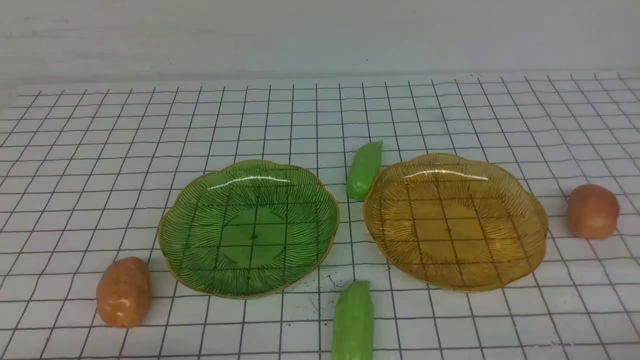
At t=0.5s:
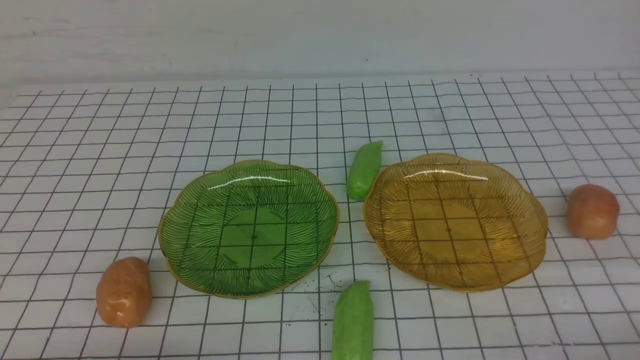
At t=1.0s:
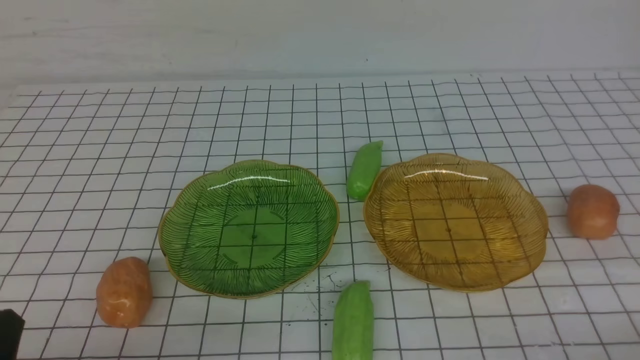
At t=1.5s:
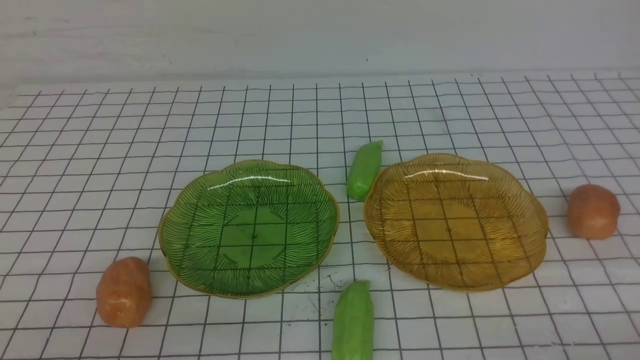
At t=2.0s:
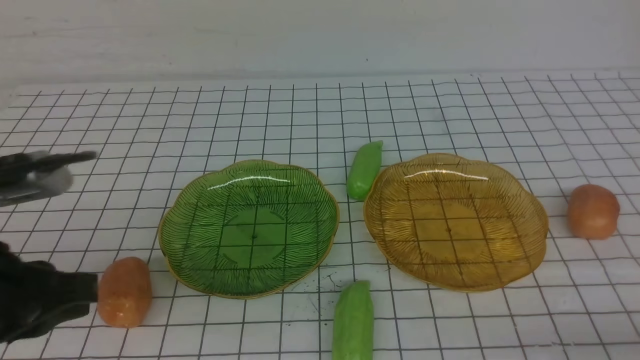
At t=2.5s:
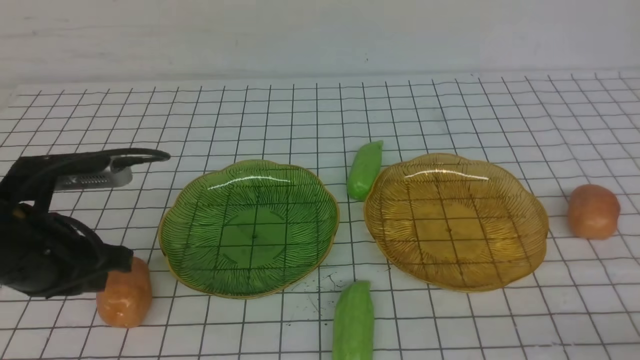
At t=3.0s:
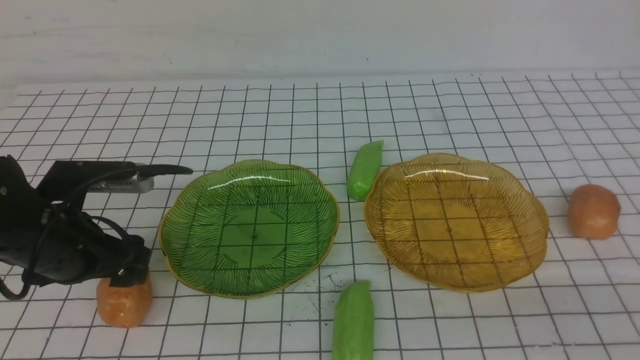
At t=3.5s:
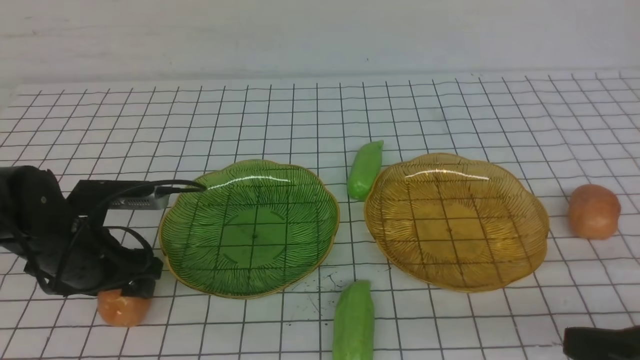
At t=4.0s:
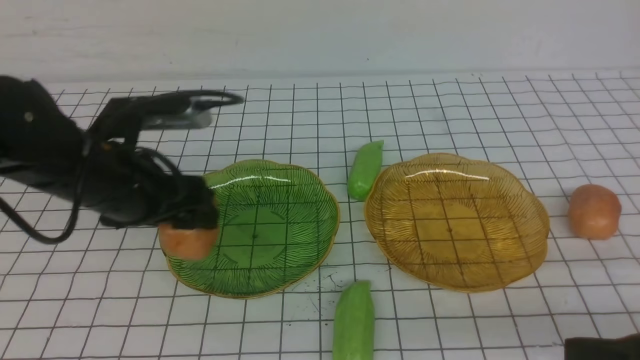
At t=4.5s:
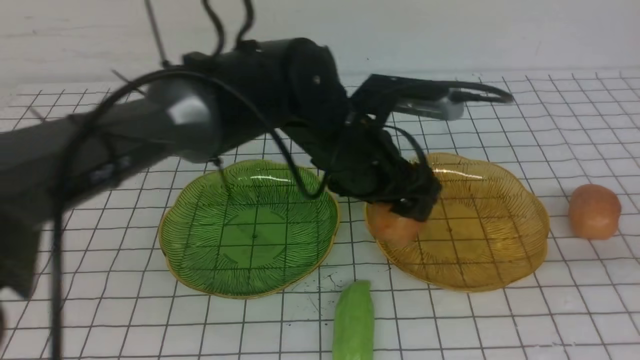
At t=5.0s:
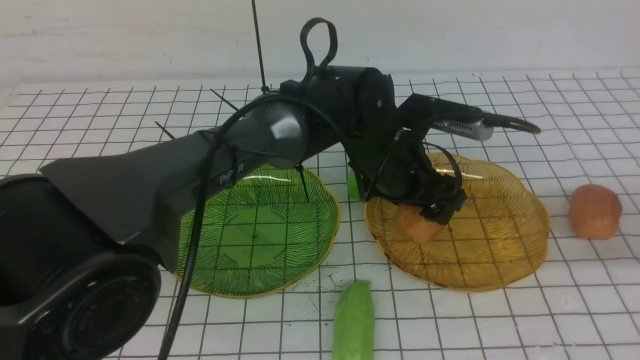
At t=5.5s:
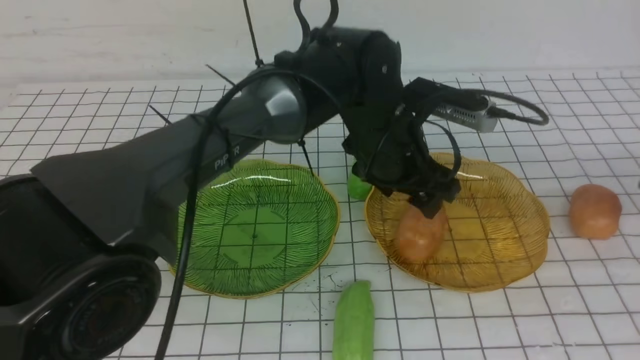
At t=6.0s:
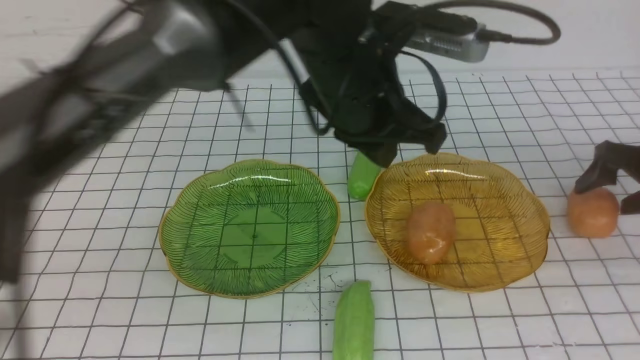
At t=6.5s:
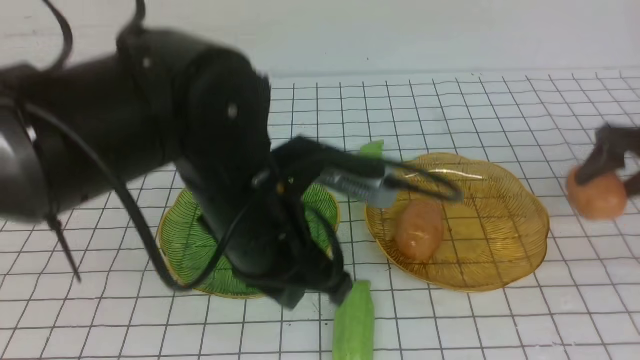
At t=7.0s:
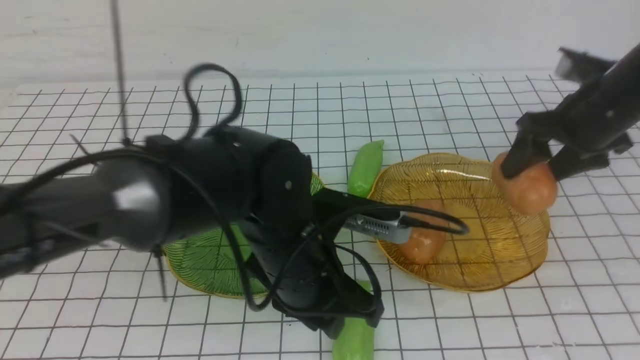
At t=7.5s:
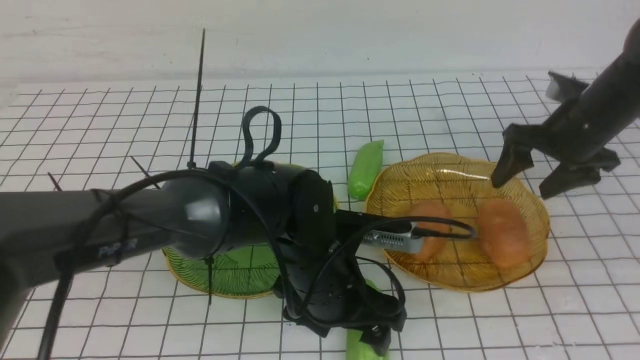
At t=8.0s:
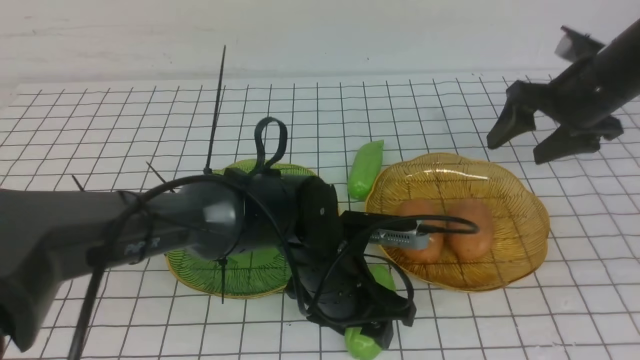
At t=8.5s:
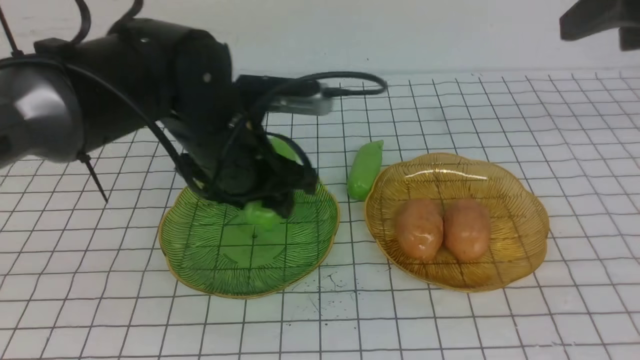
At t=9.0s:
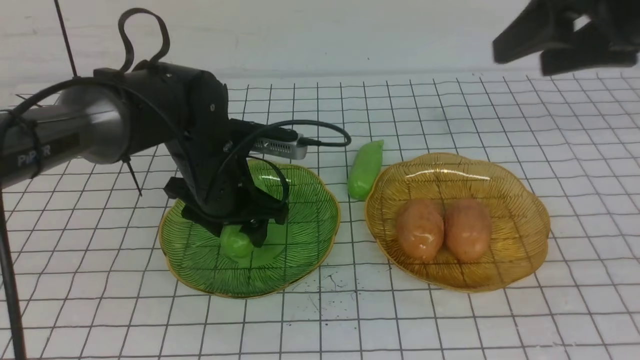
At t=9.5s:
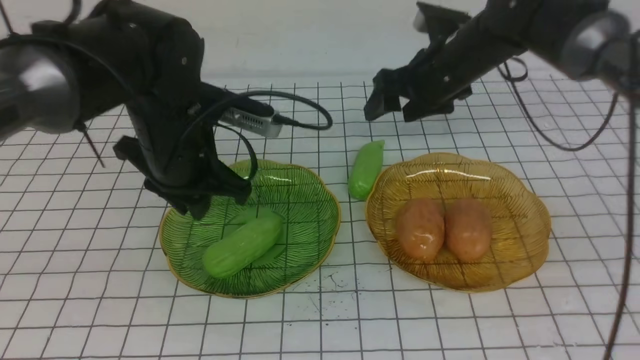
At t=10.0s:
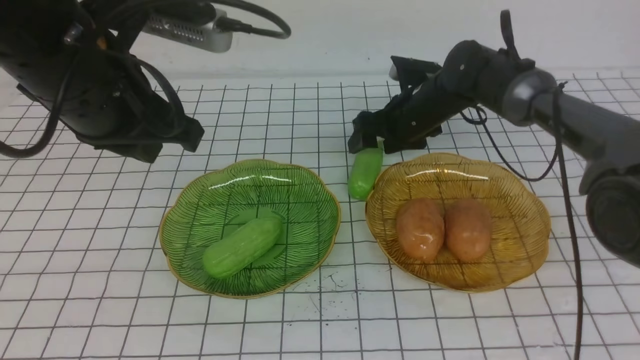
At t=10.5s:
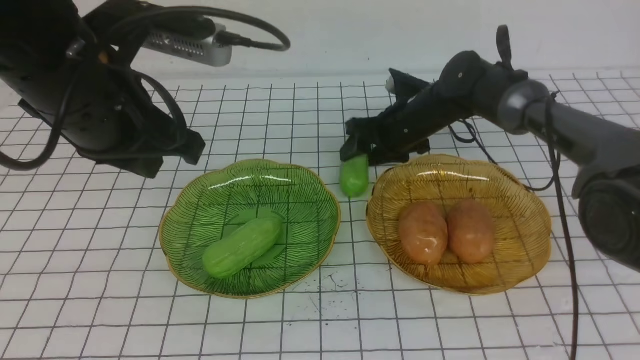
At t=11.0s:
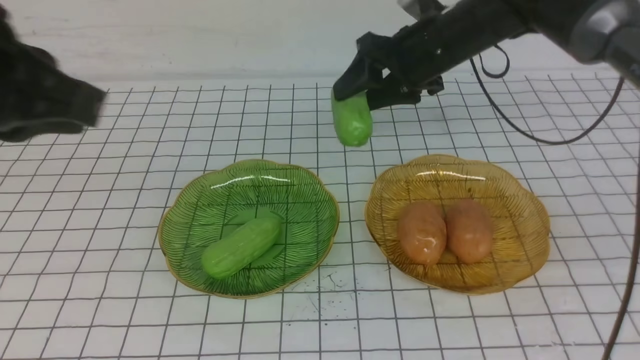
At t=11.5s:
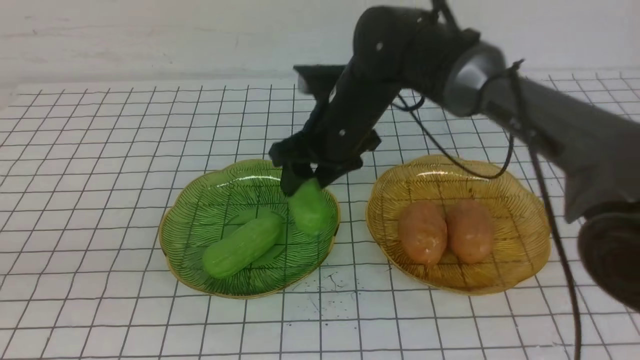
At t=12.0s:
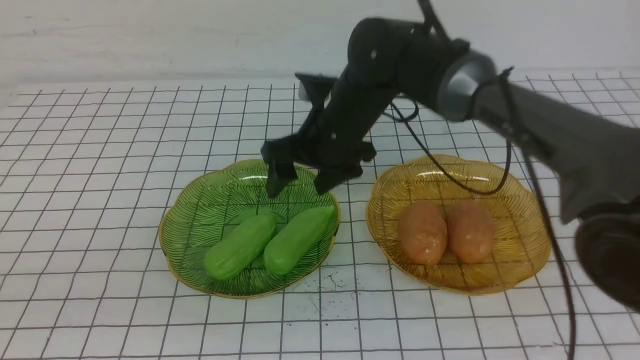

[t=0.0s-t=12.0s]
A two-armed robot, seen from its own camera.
Step, t=0.0s to t=5.0s: Grab a potato with your left arm and put it on the right plate.
Step, t=5.5s to t=7.0s: Grab a potato with your right arm and put it on the right plate.
Step, t=7.5s to t=9.0s: use the left arm to grab a chayote and put it into the left plate.
Step, t=9.5s to t=11.5s: Grab the chayote with your right arm and put it on the left plate.
t=0.0s to t=2.0s: The left gripper travels upward and forward by some 15 cm.
t=2.0s to t=4.0s: The right gripper goes about 10 cm upward and to the left. The left gripper heads forward and to the right, covering roughly 15 cm, and opens.
t=4.0s to t=6.0s: The right gripper heads forward and to the right, covering roughly 35 cm, and opens. Meanwhile the left gripper heads to the right and upward, covering roughly 20 cm, and closes.
t=6.0s to t=8.0s: The right gripper goes some 15 cm to the left and upward; the left gripper travels downward by approximately 15 cm, and opens its fingers.
t=8.0s to t=10.0s: The left gripper moves up and down over approximately 20 cm, changing direction 2 times, and closes. The right gripper travels to the left, downward and forward by approximately 25 cm.
t=10.0s to t=12.0s: The left gripper shifts approximately 25 cm backward; the right gripper heads backward, upward and to the left, covering roughly 20 cm.
